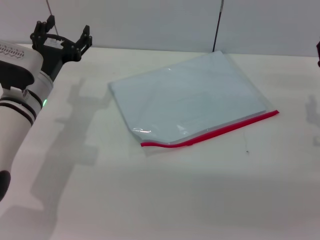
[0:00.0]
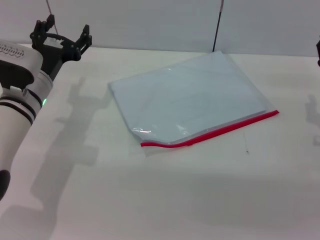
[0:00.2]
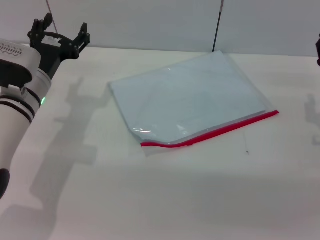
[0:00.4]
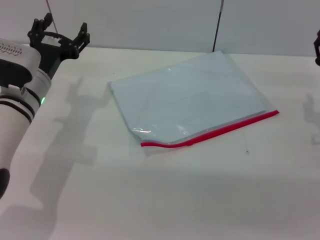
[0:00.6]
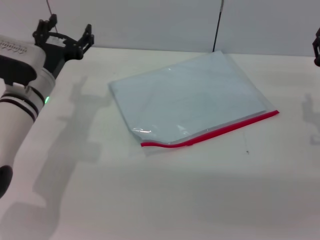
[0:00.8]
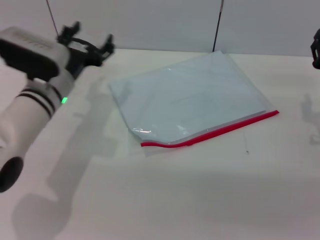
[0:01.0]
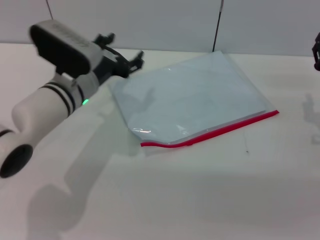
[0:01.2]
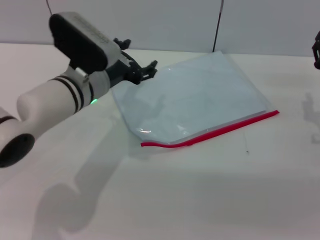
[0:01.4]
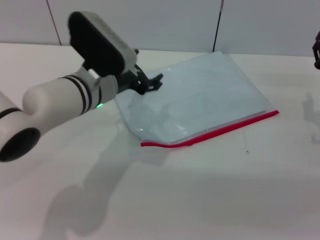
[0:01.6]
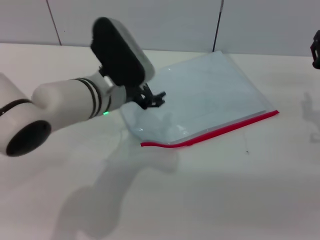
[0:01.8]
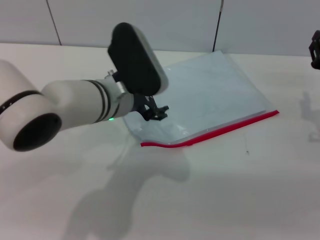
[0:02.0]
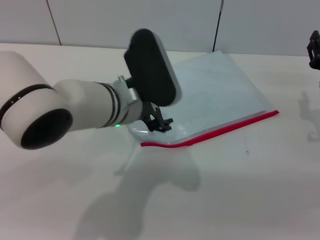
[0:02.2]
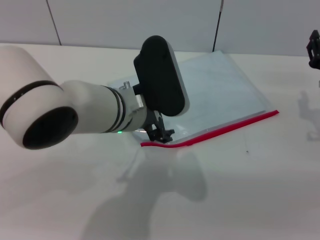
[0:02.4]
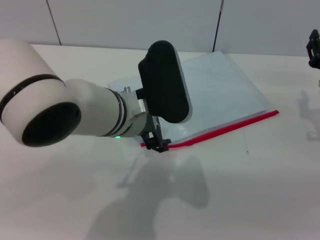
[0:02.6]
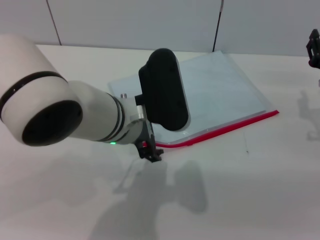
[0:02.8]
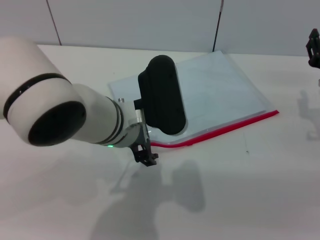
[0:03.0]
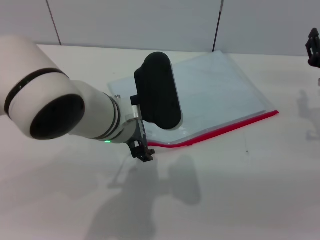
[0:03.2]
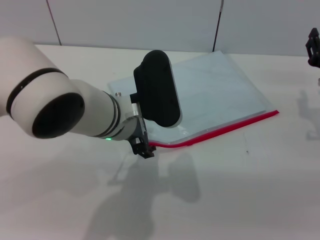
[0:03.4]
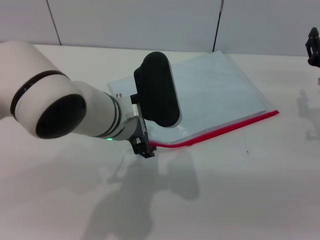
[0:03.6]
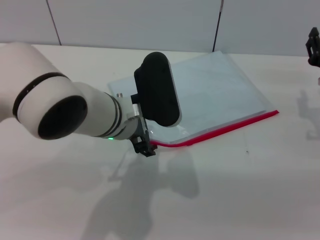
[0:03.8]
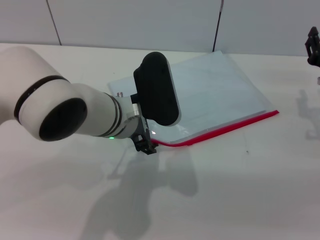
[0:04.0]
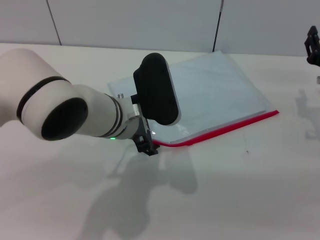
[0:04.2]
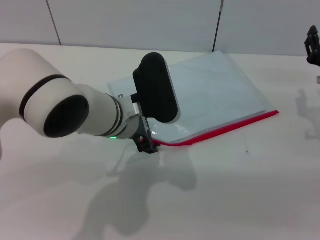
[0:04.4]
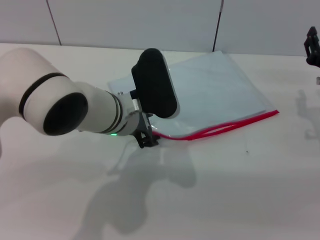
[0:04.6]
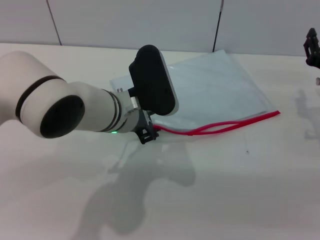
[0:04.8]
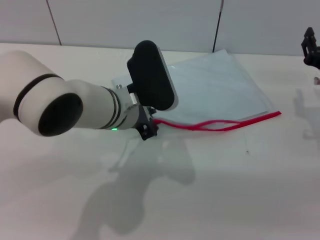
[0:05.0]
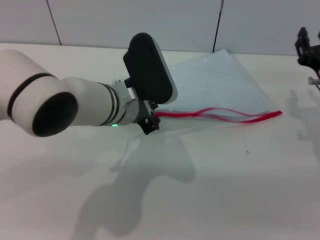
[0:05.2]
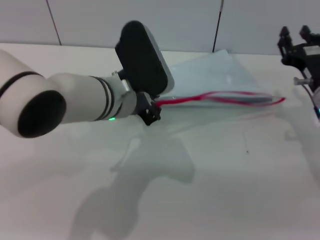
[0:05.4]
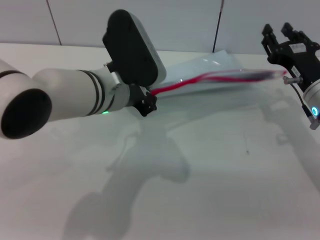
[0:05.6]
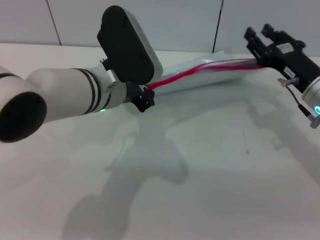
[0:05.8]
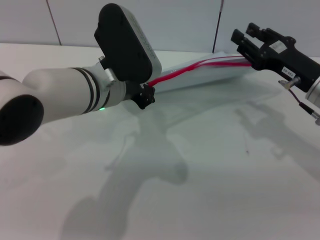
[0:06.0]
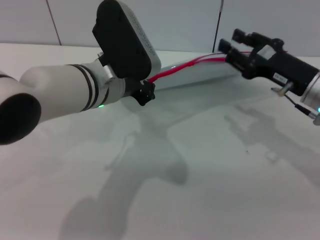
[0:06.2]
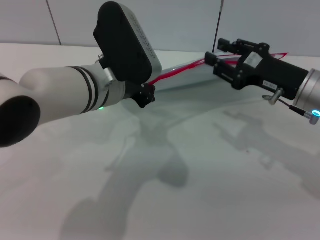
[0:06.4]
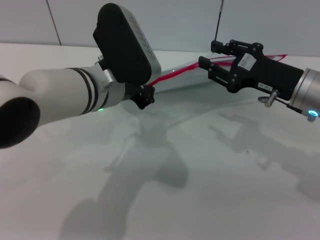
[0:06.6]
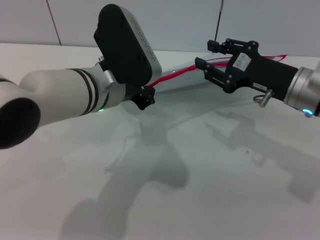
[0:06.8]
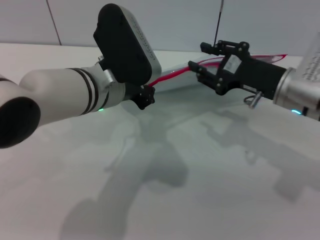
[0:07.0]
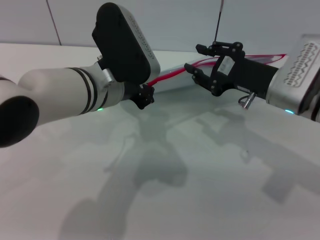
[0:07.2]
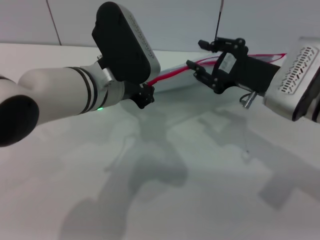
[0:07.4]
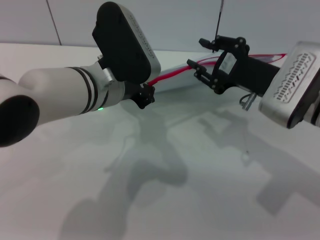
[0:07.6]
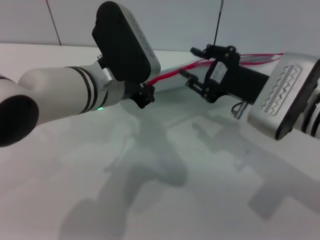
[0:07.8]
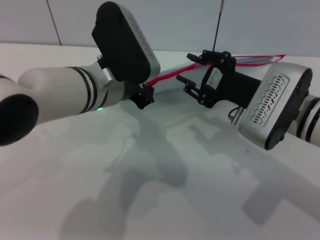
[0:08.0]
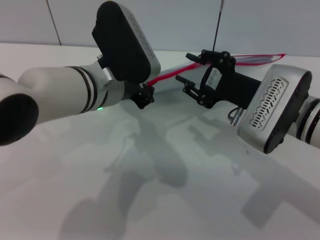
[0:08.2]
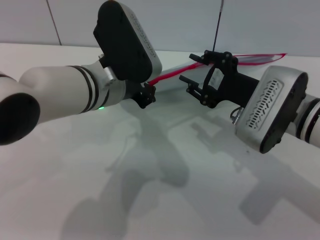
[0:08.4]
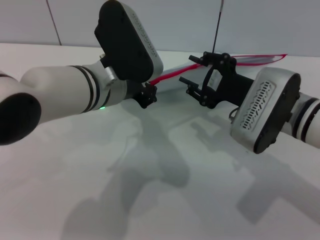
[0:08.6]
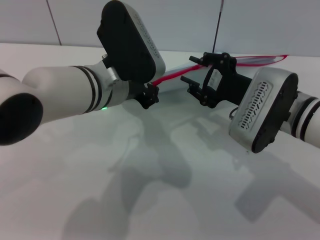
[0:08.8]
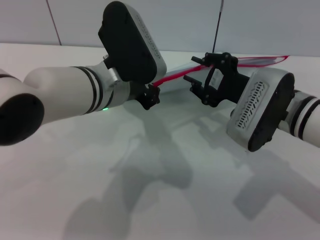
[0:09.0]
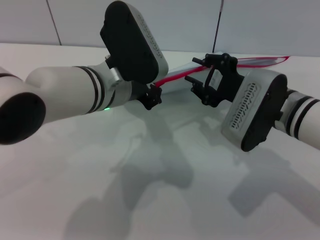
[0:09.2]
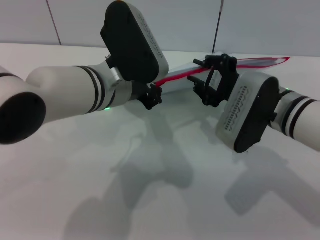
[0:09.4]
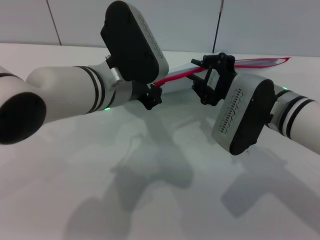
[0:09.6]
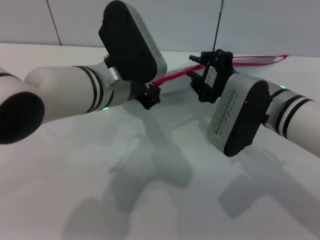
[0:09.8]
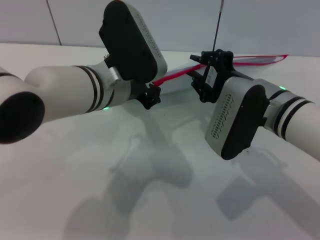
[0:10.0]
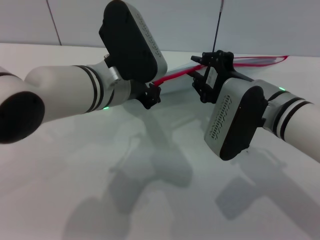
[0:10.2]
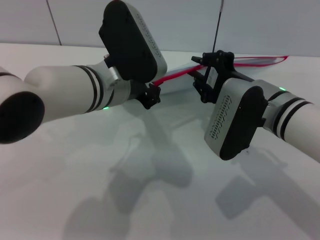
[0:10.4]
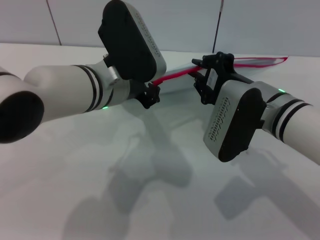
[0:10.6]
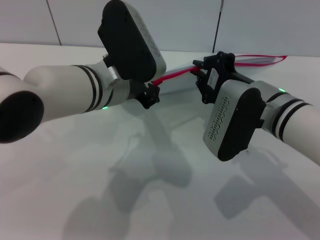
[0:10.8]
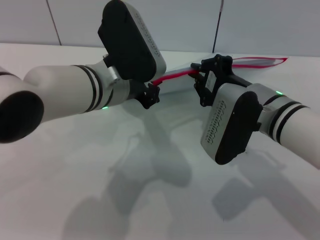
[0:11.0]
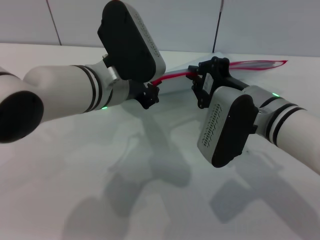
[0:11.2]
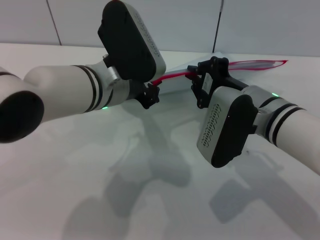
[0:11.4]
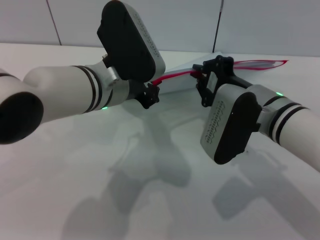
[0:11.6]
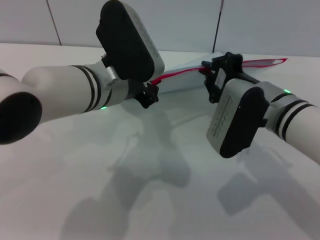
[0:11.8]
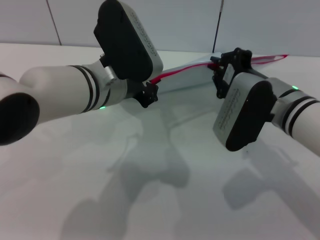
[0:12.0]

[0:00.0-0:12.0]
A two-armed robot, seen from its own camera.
Step, 0:00.0 to 0:05.6: Pick up the transparent plastic bag with the left gripper.
0:00.0 to 0:01.6: The left gripper heads to the right, covering about 10 cm.
0:01.6 to 0:03.0: The left gripper moves backward and to the right, approximately 10 cm.
0:03.0 to 0:04.4: The grippers stay close to where they were, moving slightly.
0:04.4 to 0:06.0: The left gripper closes its fingers.
0:06.0 to 0:07.6: The right gripper is displaced to the left by about 5 cm.
0:07.6 to 0:09.0: The grippers stay close to where they were, moving slightly.
0:09.0 to 0:10.4: There are only small adjustments of the grippers.
0:10.4 to 0:12.0: The right gripper closes its fingers.

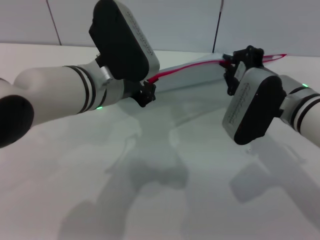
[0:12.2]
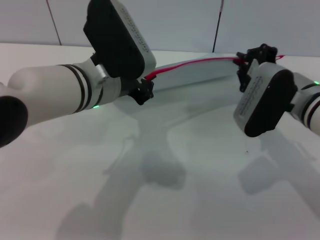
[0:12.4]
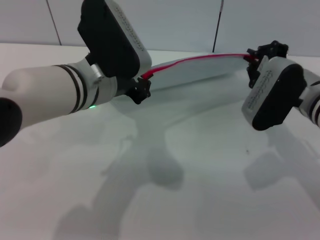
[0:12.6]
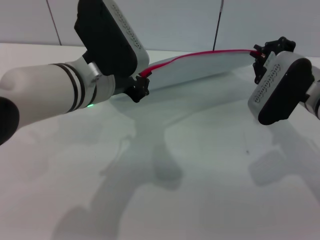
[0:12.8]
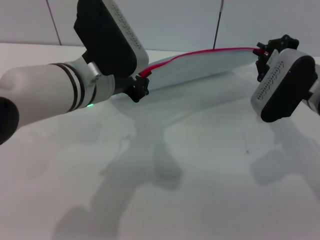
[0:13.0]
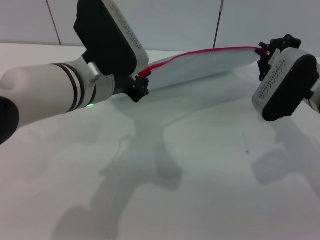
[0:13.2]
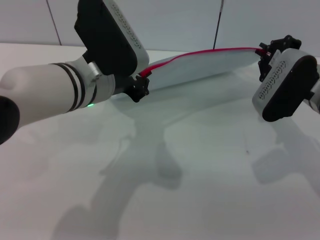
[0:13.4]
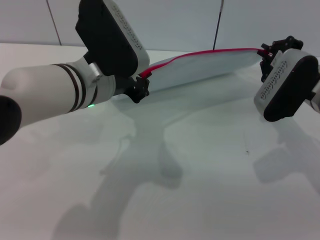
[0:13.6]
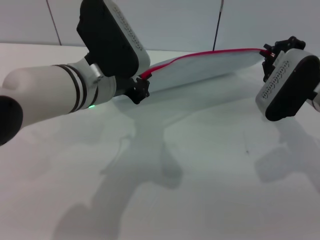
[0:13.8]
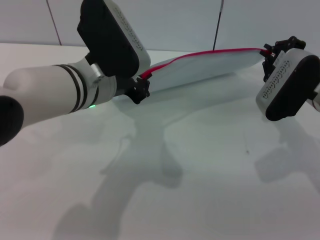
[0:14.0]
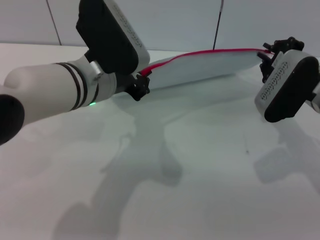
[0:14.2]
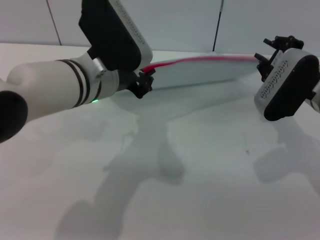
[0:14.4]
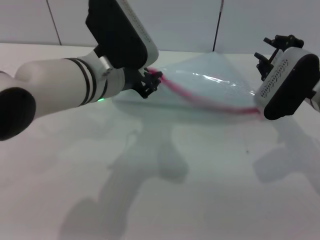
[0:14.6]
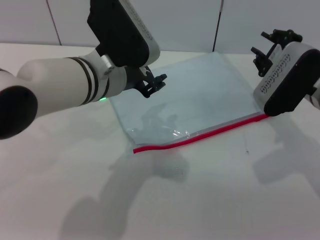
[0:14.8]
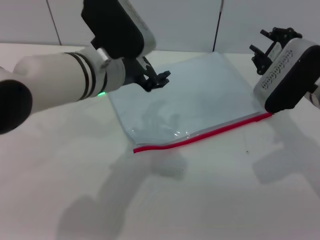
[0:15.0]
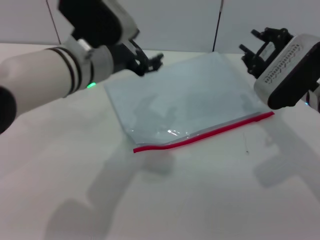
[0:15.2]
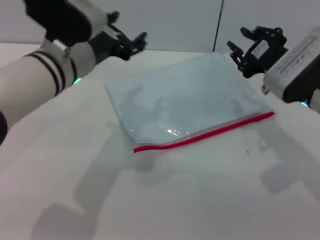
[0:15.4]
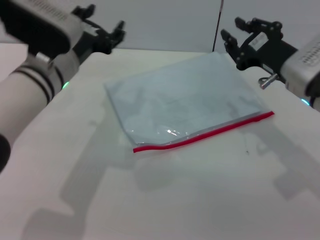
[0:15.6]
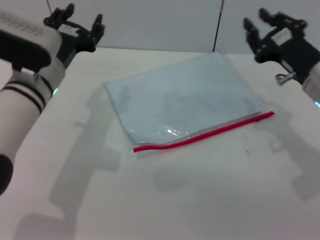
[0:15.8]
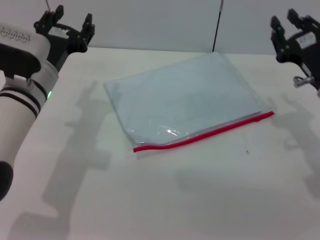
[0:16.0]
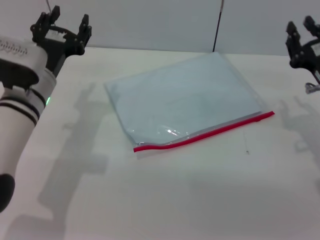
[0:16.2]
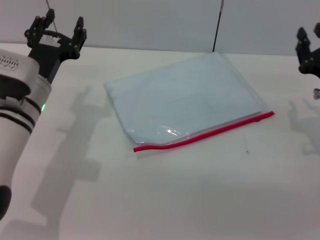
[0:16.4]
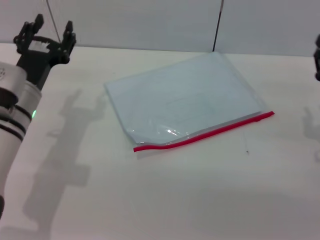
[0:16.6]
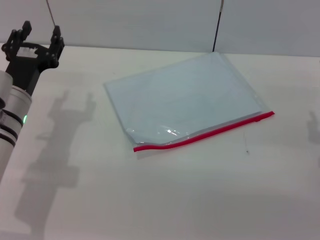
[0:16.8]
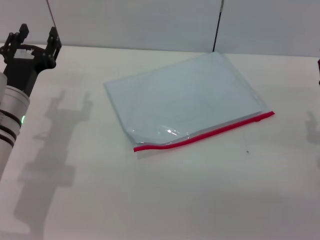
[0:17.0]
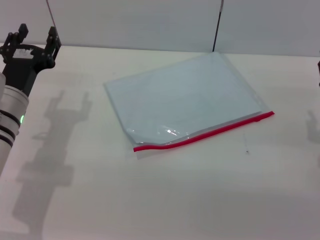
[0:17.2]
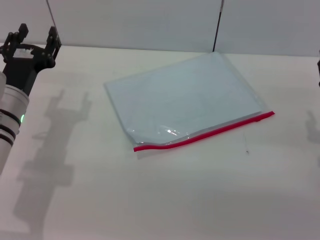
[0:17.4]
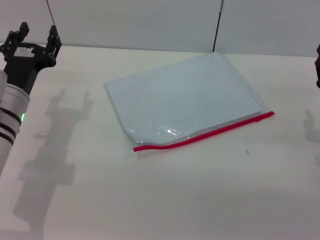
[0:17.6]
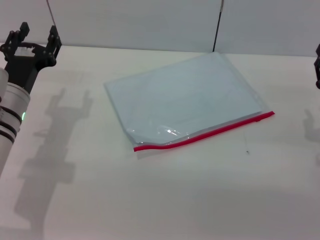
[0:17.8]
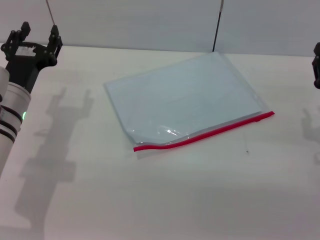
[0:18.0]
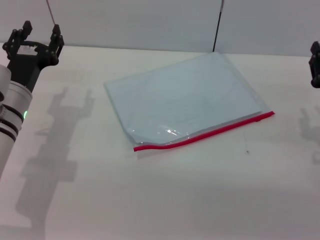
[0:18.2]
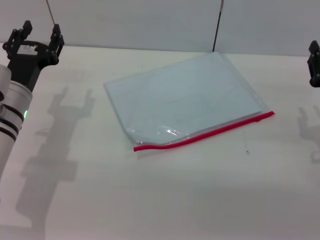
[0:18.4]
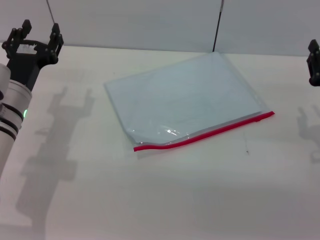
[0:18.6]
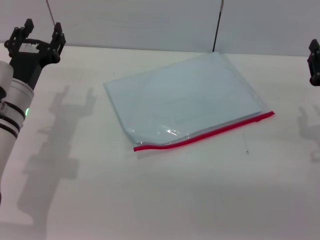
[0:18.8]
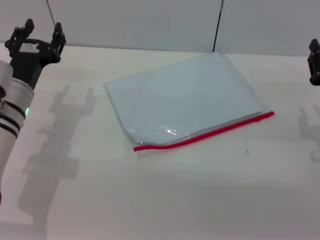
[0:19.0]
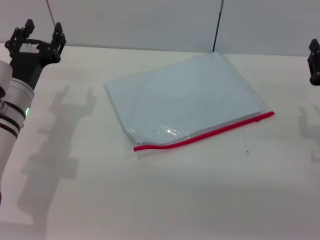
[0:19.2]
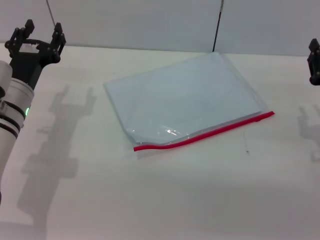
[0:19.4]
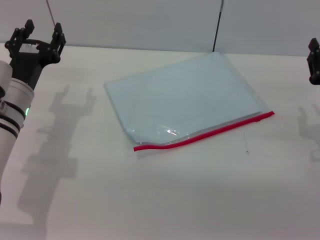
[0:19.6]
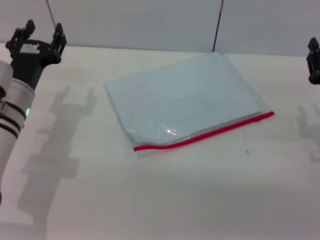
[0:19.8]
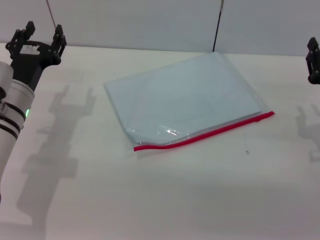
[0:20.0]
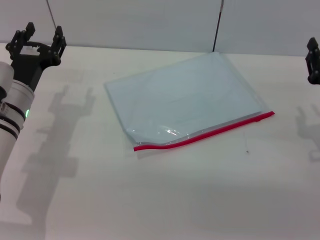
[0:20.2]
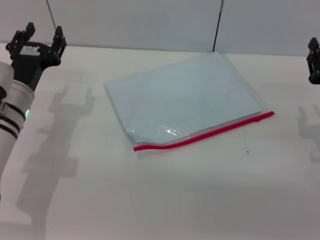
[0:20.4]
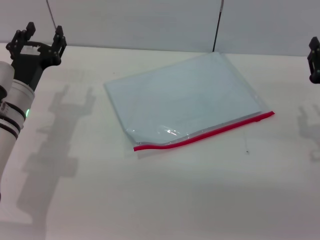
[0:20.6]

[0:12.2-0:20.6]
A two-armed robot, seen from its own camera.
Step, 0:12.2 to 0:14.2: Pulling up the zipper on the transparent plastic bag with the right gripper to close it.
Step, 0:14.6 to 0:15.4: Place the transparent plastic bag.
0:12.2 to 0:13.6: The right gripper changes place by roughly 5 cm.
0:13.6 to 0:15.0: The left gripper opens its fingers. The right gripper opens its fingers.
0:15.0 to 0:16.4: The left gripper shifts about 15 cm to the left and downward; the right gripper goes about 5 cm to the right.
0:16.4 to 0:17.8: The grippers stay close to where they were, moving slightly.
0:17.8 to 0:20.6: Both grippers stay put.
